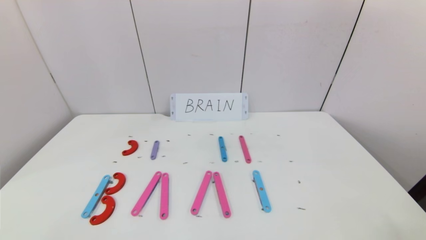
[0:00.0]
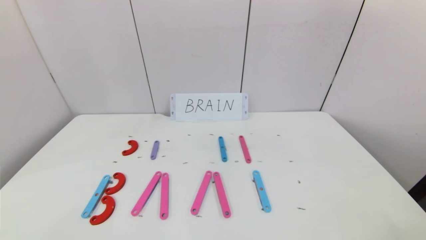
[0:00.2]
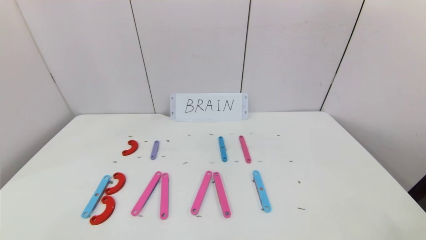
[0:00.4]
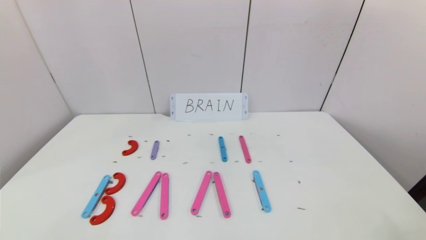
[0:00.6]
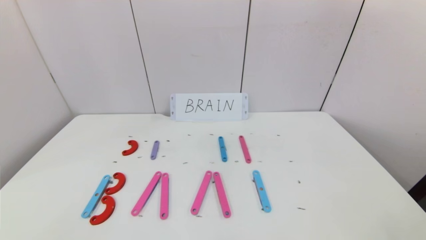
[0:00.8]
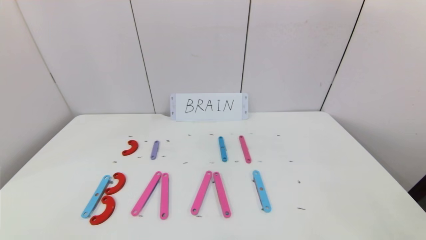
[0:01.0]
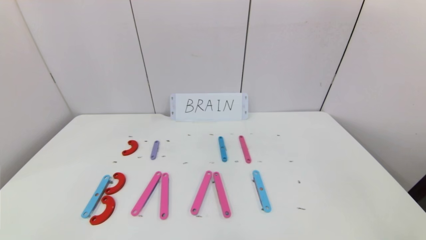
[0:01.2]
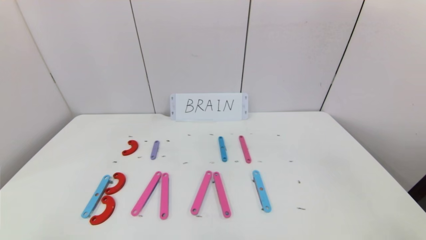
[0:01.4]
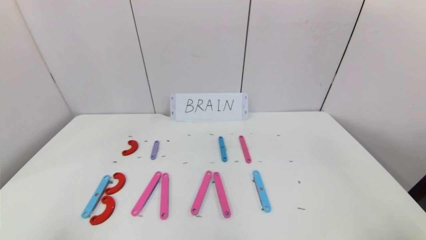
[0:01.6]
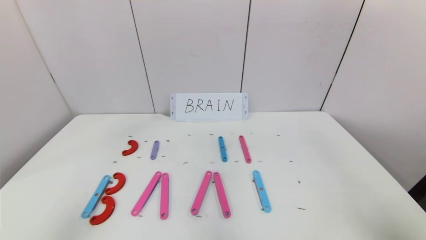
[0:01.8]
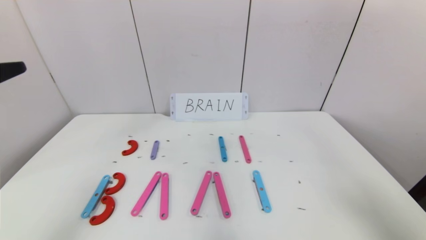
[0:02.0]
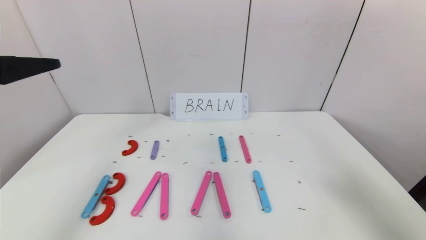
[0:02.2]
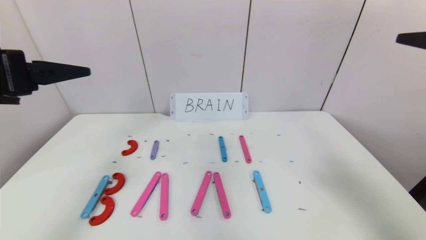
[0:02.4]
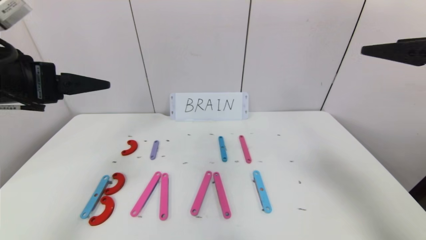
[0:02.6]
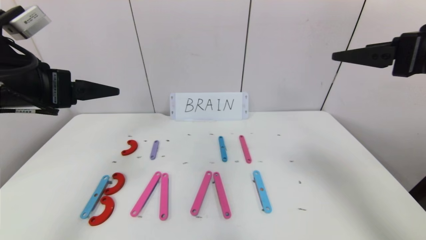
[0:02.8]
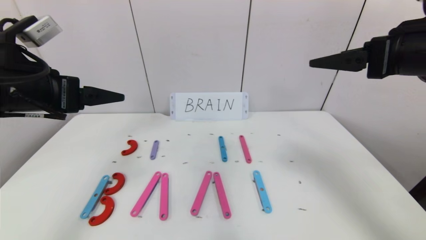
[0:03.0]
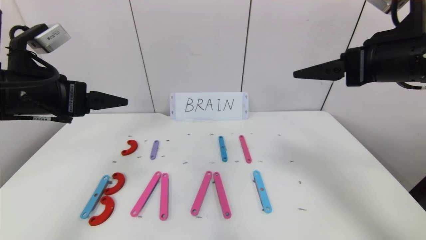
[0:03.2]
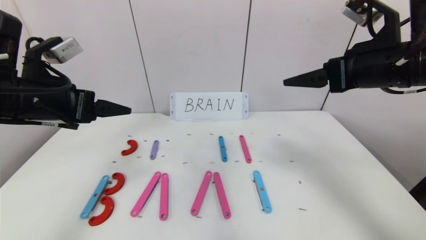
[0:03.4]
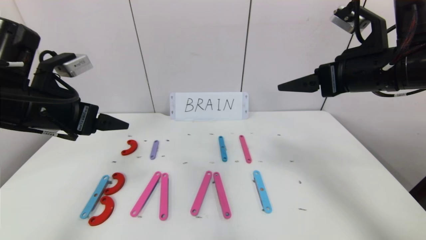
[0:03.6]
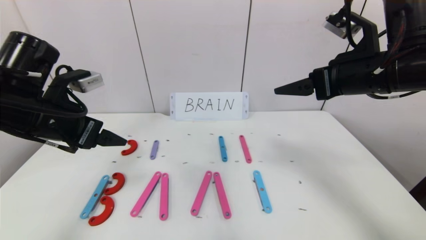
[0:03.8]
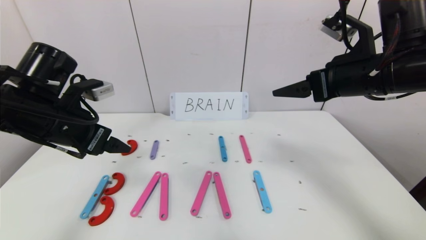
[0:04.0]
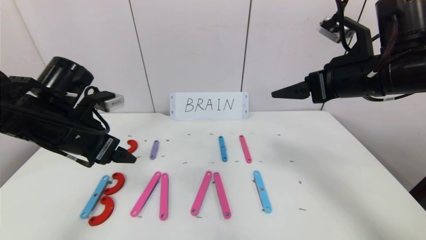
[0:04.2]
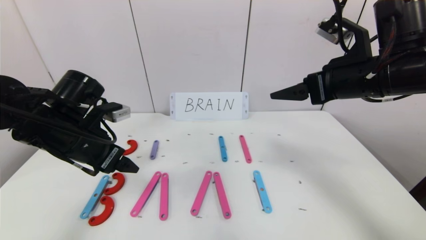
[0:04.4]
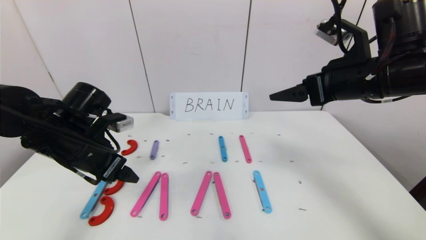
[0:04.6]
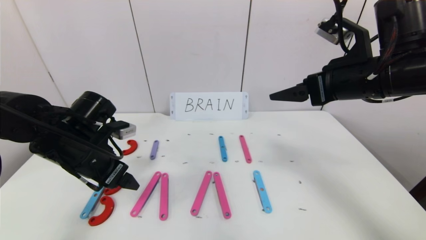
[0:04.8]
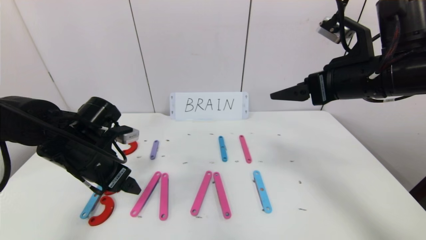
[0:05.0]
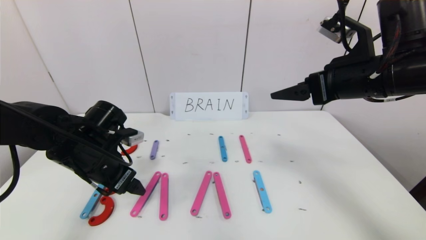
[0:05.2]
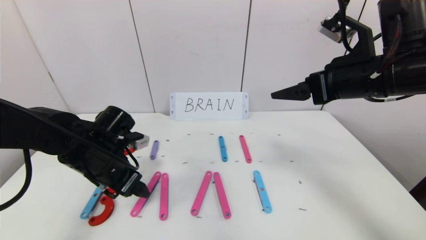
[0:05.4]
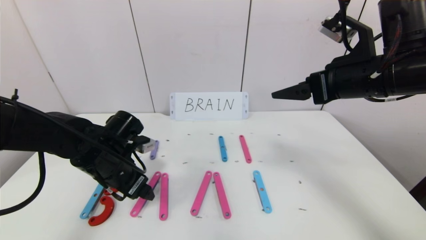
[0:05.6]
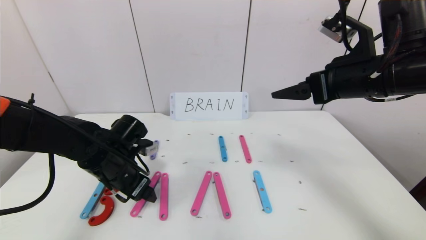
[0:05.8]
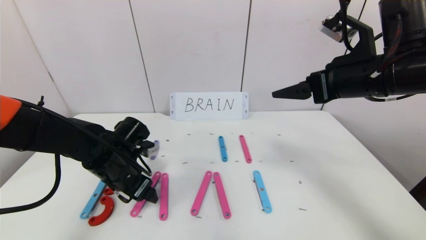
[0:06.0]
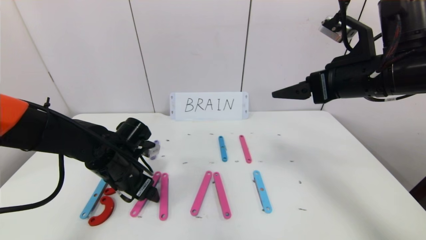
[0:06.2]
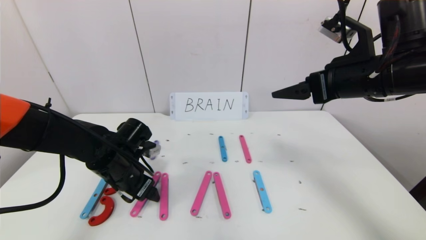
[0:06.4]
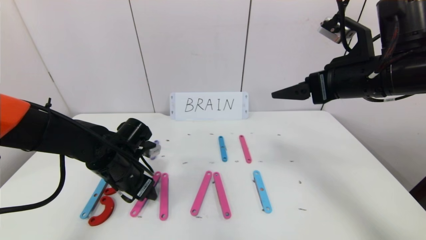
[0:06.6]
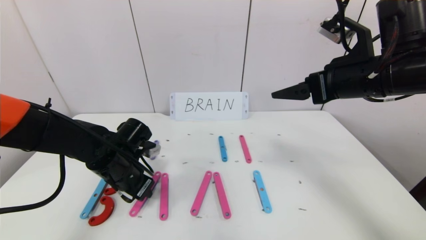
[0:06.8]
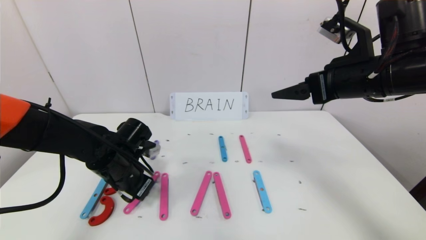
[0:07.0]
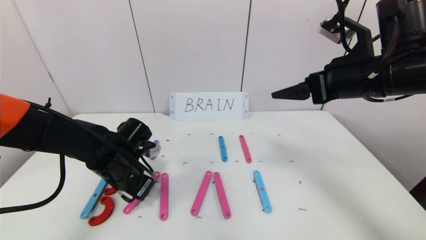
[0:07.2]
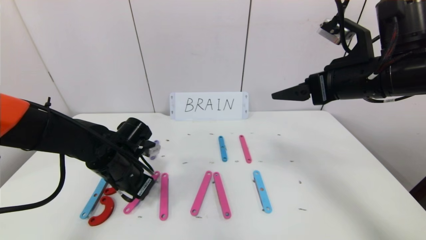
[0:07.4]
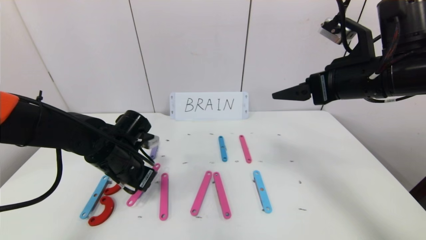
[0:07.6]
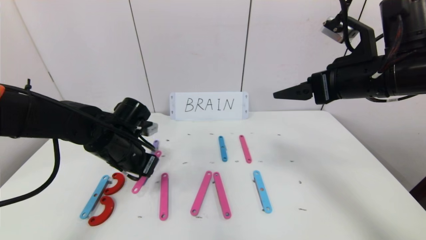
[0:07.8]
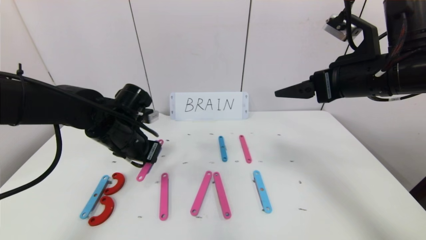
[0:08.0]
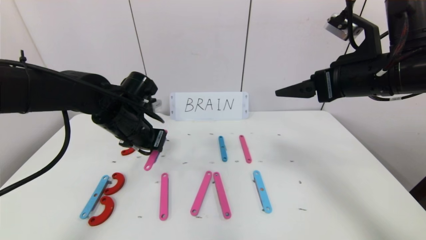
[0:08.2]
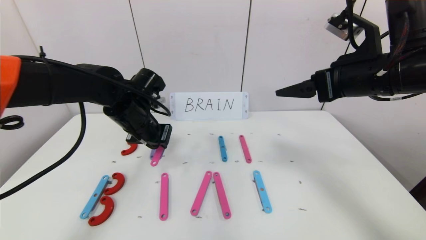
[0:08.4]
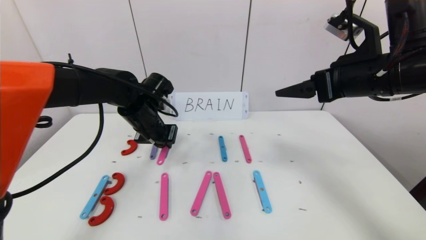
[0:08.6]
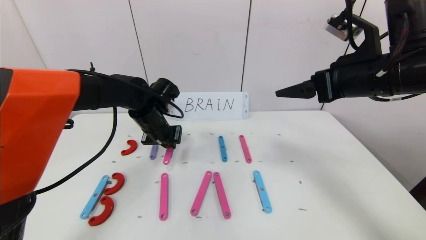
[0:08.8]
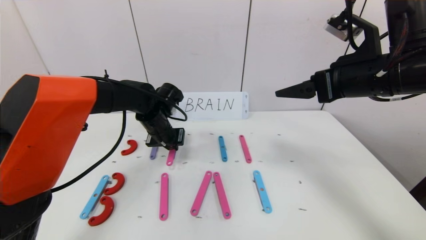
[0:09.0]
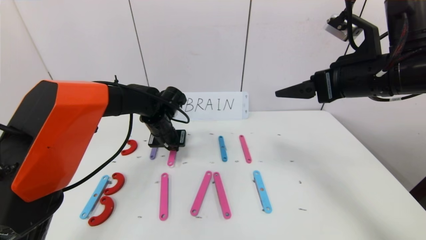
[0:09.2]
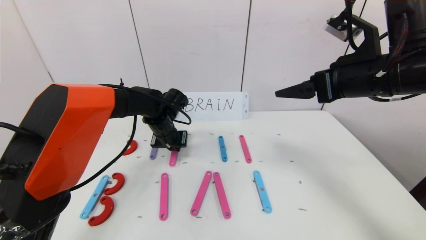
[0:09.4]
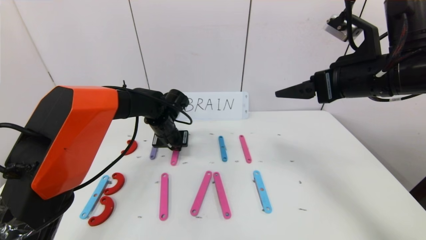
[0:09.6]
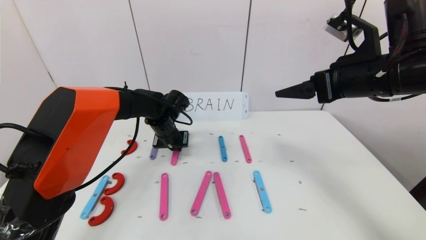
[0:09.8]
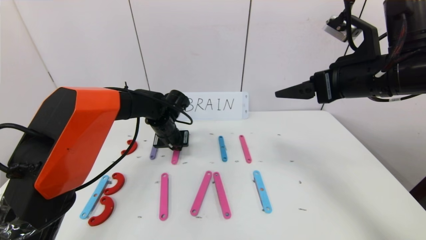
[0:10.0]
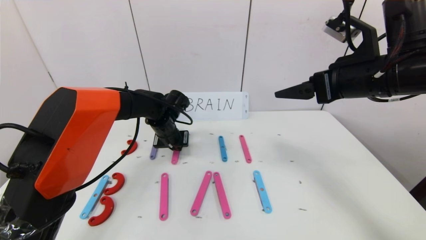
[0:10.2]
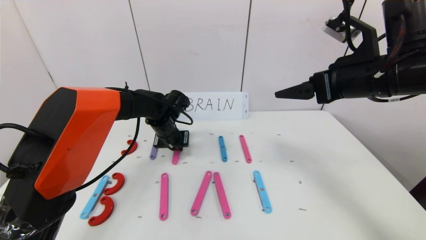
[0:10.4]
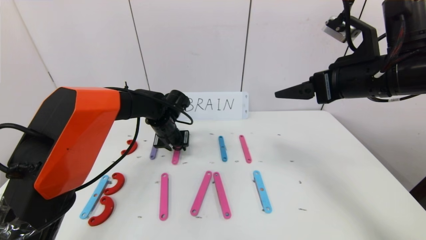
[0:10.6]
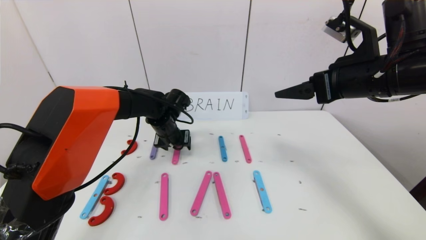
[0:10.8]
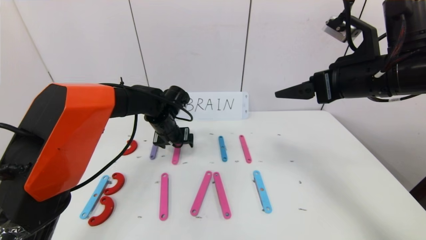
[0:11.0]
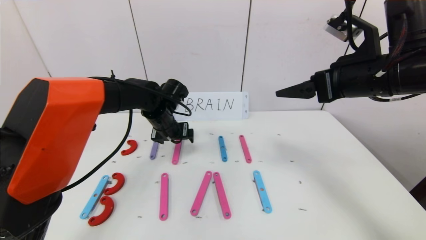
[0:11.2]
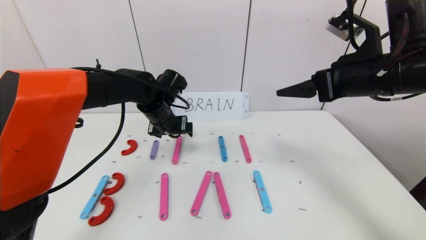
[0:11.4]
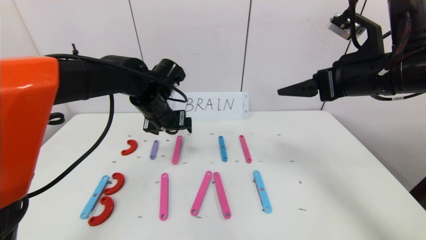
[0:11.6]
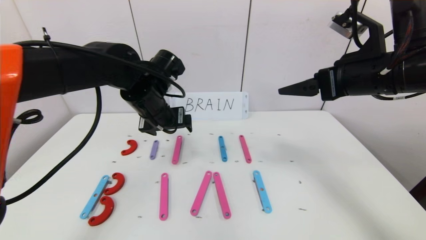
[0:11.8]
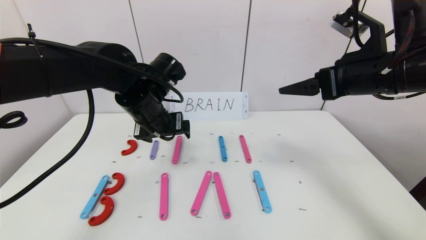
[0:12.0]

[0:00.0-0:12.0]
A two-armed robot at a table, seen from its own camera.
Task of the whole recording: rearrange the word baai as brain.
0:01.6 to 0:03.0: Both grippers travel together forward, approximately 20 cm.
0:03.0 to 0:04.4: The left gripper is displaced downward by approximately 10 cm; the right gripper moves about 5 cm.
0:04.4 to 0:06.0: The left gripper heads downward, covering some 10 cm.
0:06.0 to 0:07.6: The left gripper closes.
0:07.6 to 0:09.0: The left gripper travels forward and to the right by about 10 cm.
0:09.0 to 0:10.4: The grippers move only a little.
0:10.4 to 0:12.0: The left gripper moves upward and backward, roughly 15 cm, and opens its fingers.

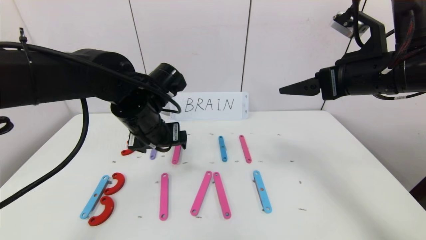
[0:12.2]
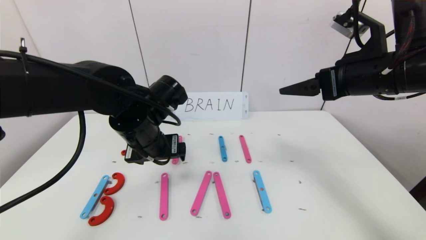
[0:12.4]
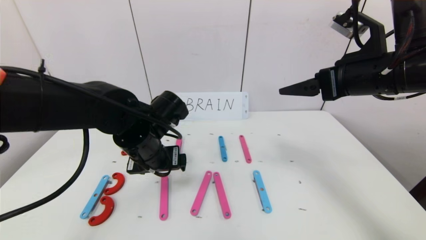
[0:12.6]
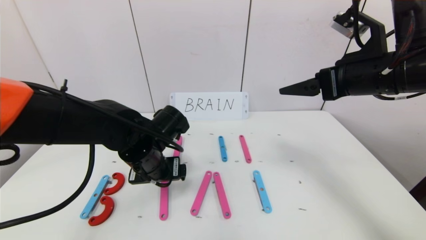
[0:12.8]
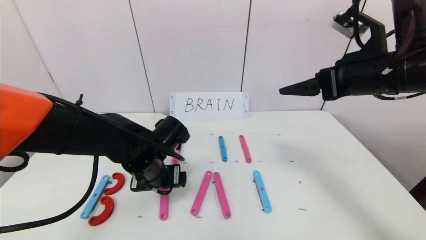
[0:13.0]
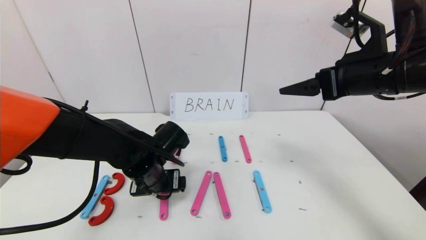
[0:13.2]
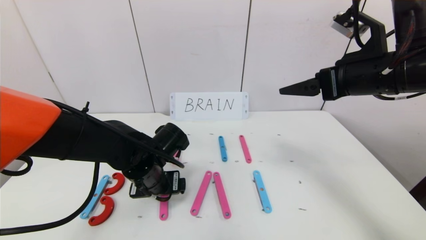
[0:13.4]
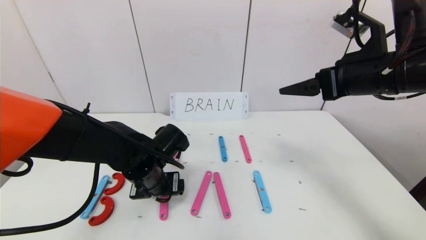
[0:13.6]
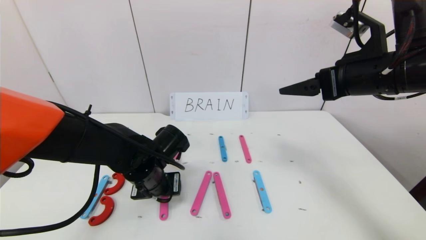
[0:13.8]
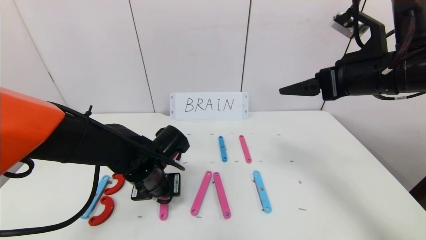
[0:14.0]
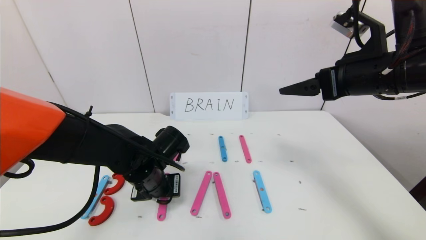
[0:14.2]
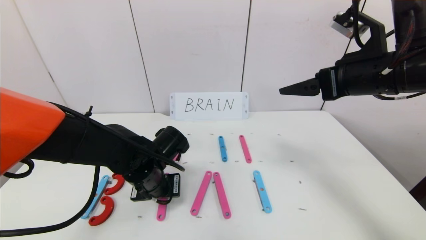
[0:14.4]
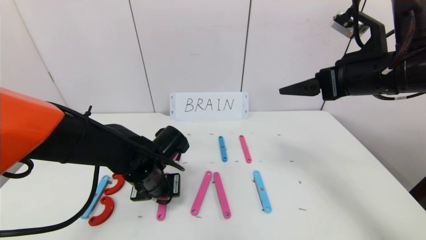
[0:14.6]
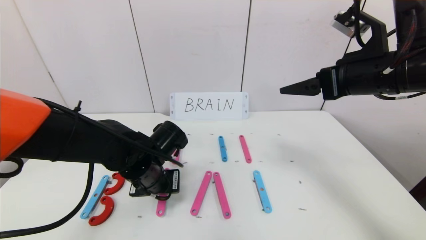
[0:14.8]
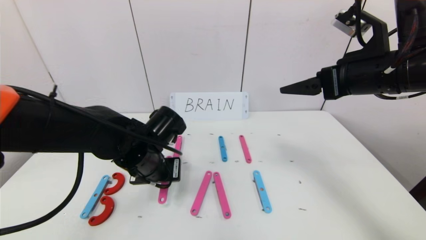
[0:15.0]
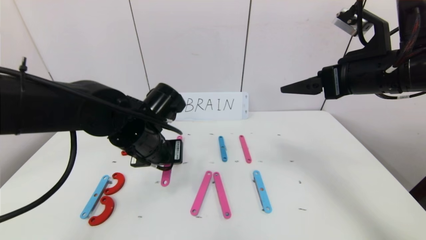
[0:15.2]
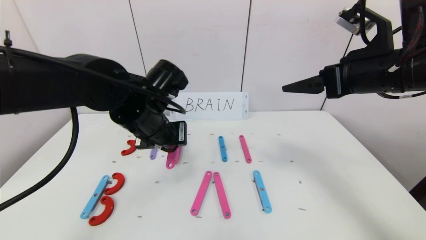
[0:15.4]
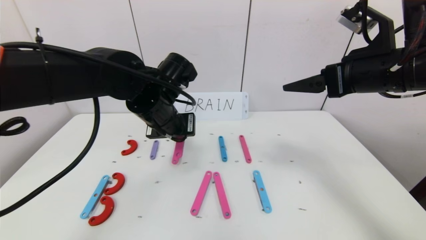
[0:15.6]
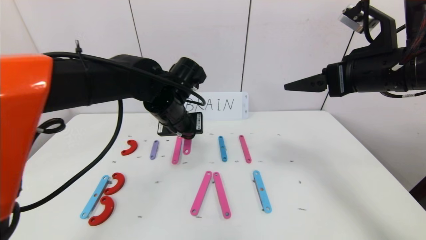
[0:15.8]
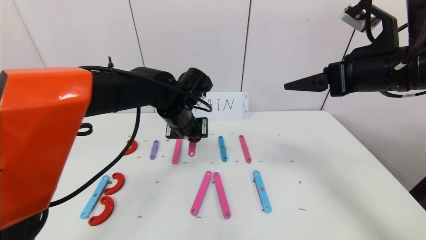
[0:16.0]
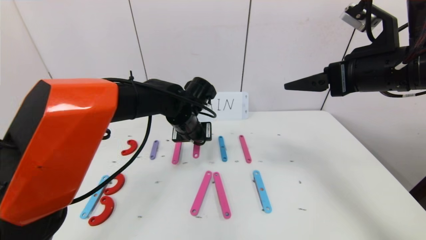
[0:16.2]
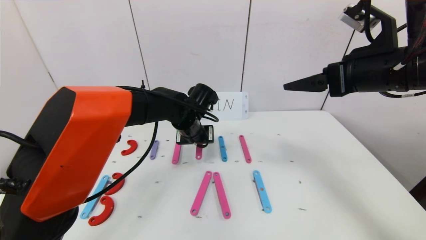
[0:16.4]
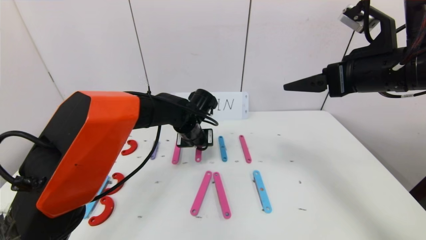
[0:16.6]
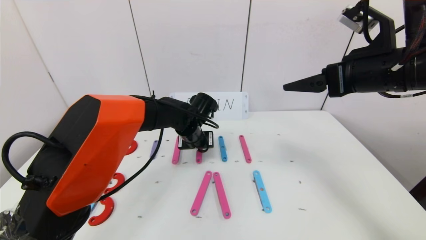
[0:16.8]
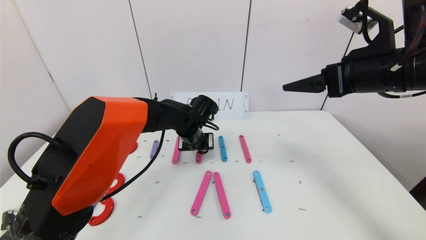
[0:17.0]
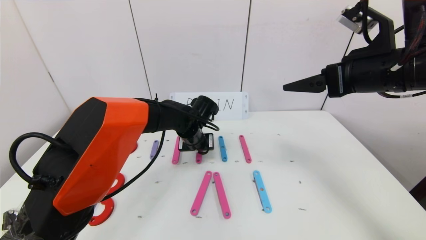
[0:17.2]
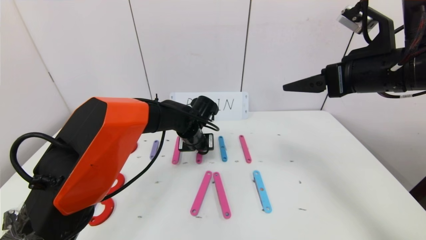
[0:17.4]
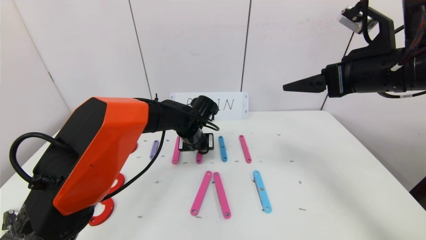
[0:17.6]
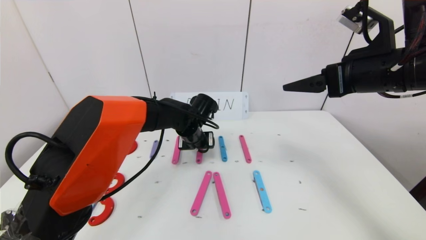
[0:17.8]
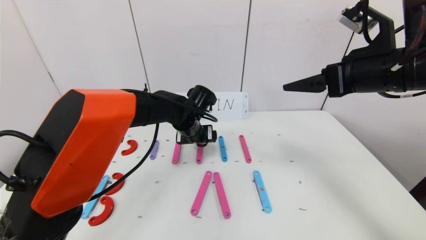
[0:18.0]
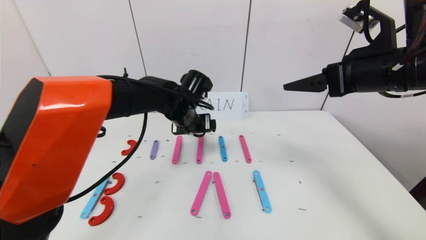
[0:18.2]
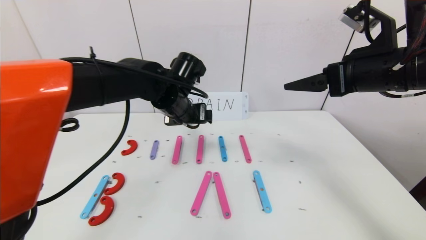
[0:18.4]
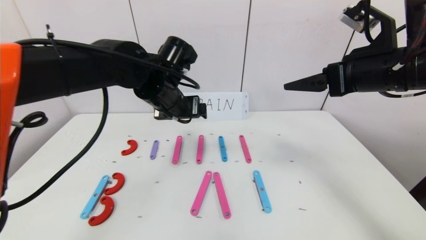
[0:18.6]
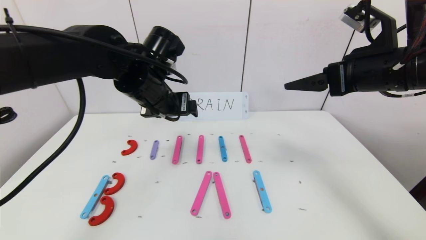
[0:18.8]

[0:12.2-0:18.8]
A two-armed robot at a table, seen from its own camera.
Task of the whole recording: rearrange the word baai as brain.
Step, 0:12.2 to 0:17.6: Disassemble the second character A.
0:12.2 to 0:13.8: The left gripper heads downward, covering approximately 10 cm.
0:13.8 to 0:15.4: The left gripper moves upward, about 10 cm, and closes its fingers.
0:15.4 to 0:17.2: The left gripper heads downward, forward and to the right, covering some 15 cm.
0:17.2 to 0:18.8: The left gripper shifts roughly 20 cm upward, backward and to the left, and opens.
